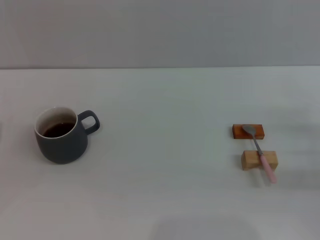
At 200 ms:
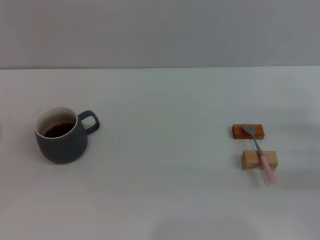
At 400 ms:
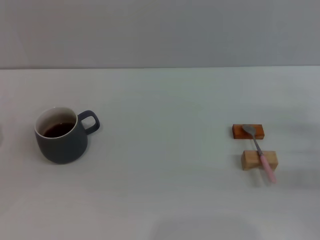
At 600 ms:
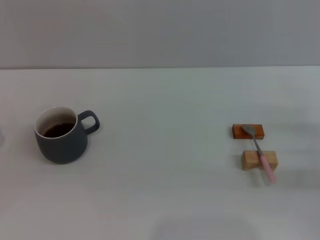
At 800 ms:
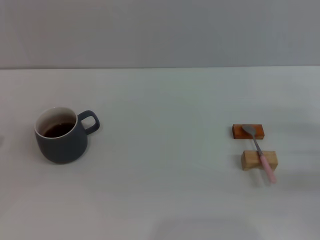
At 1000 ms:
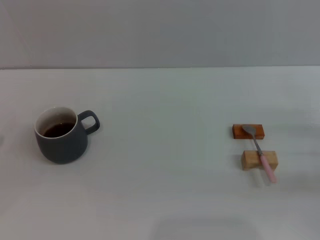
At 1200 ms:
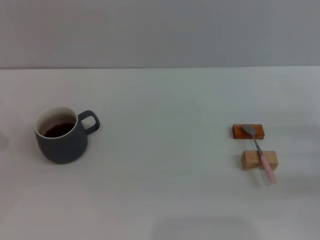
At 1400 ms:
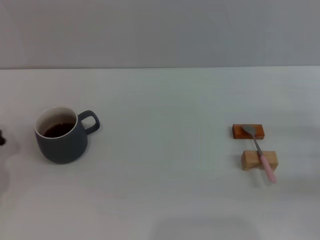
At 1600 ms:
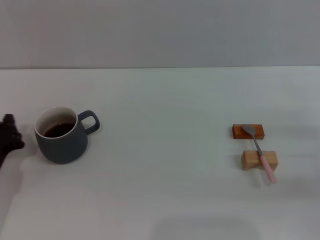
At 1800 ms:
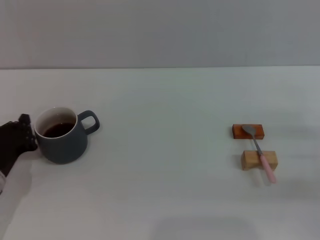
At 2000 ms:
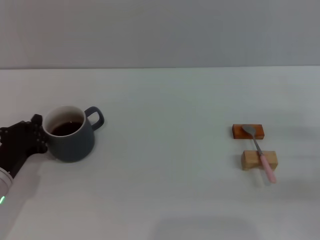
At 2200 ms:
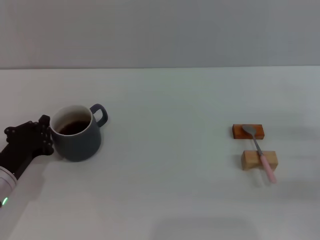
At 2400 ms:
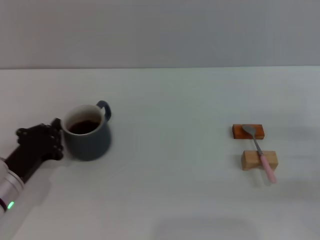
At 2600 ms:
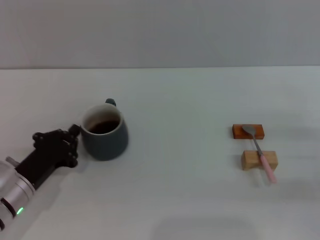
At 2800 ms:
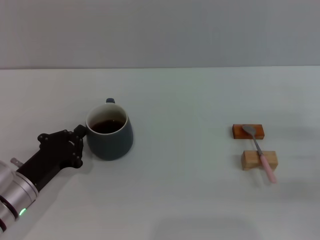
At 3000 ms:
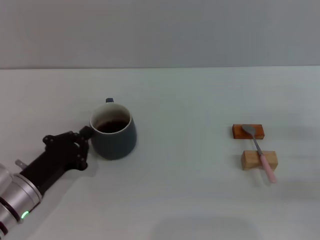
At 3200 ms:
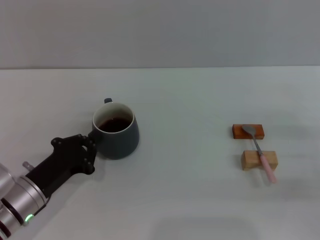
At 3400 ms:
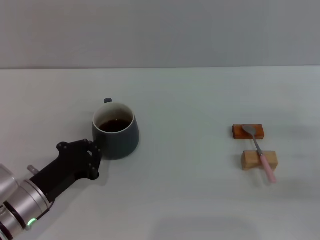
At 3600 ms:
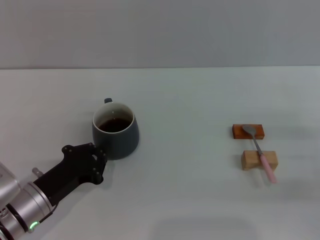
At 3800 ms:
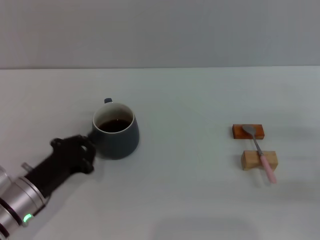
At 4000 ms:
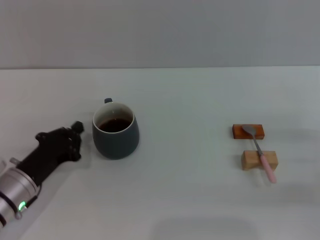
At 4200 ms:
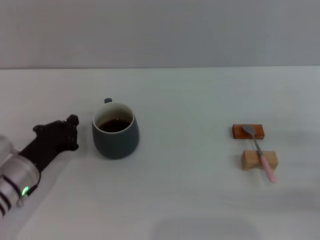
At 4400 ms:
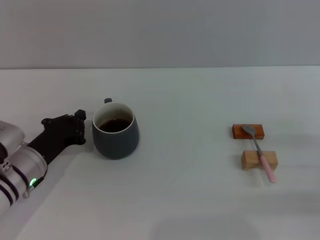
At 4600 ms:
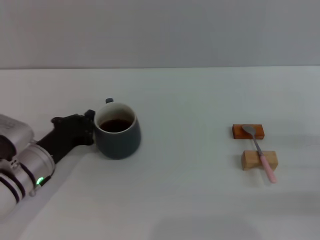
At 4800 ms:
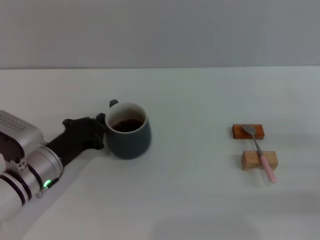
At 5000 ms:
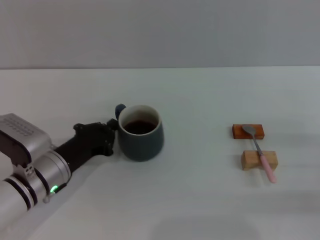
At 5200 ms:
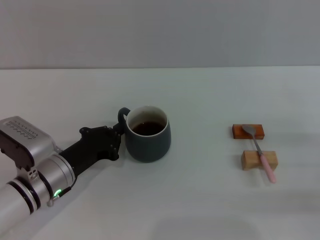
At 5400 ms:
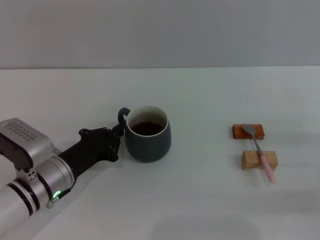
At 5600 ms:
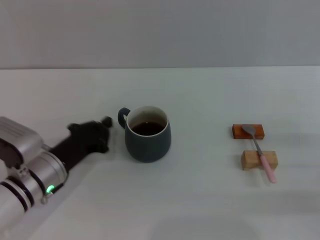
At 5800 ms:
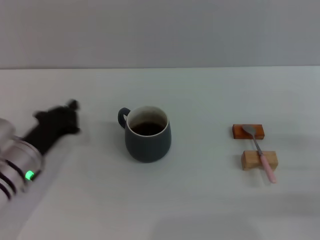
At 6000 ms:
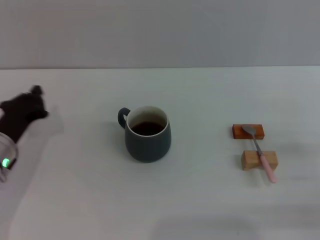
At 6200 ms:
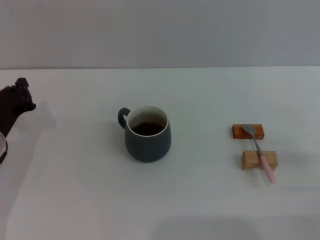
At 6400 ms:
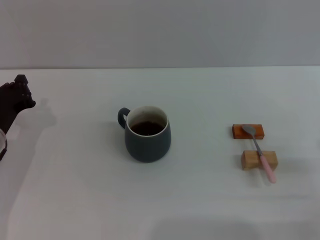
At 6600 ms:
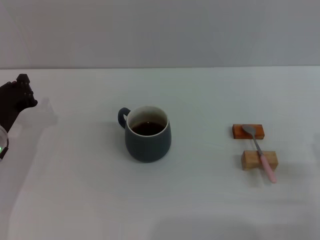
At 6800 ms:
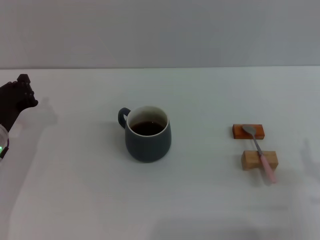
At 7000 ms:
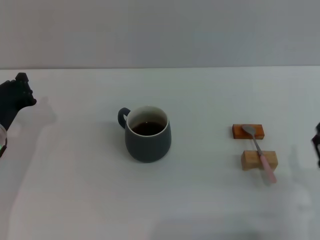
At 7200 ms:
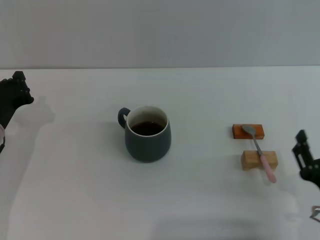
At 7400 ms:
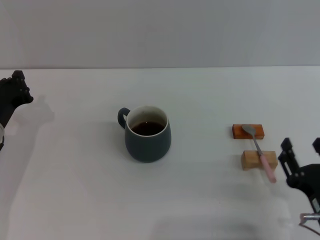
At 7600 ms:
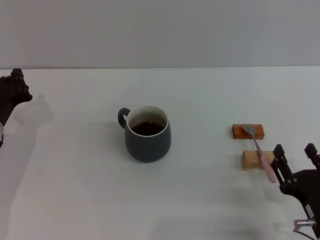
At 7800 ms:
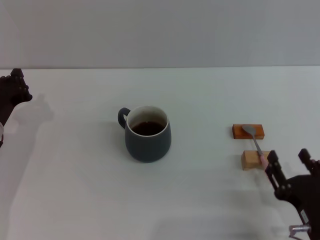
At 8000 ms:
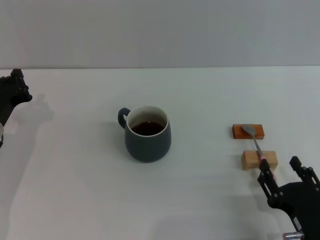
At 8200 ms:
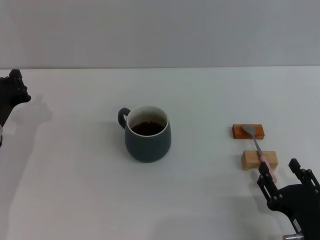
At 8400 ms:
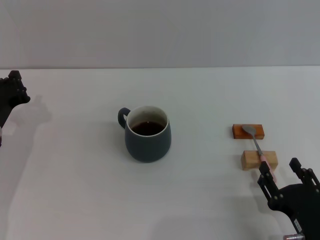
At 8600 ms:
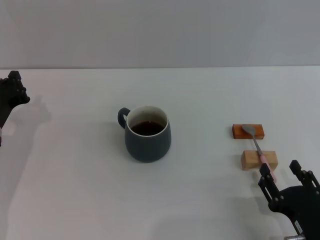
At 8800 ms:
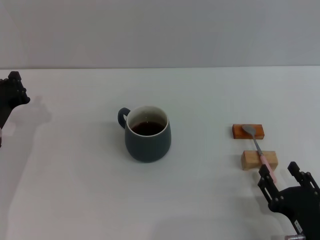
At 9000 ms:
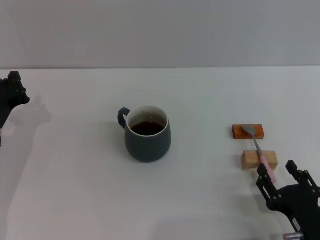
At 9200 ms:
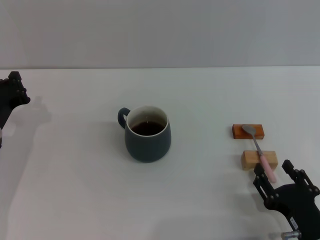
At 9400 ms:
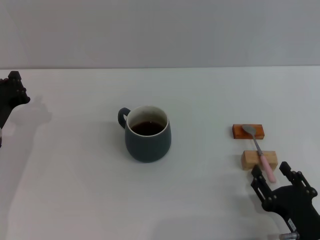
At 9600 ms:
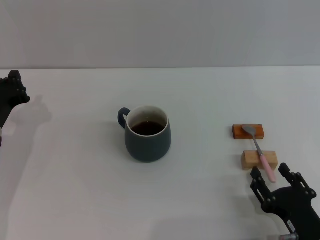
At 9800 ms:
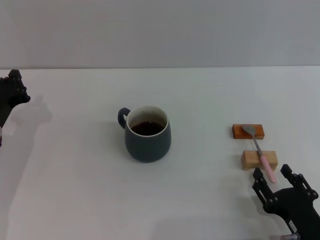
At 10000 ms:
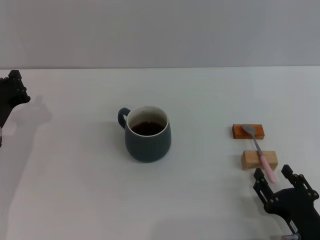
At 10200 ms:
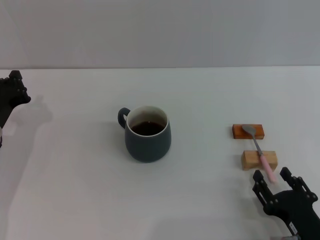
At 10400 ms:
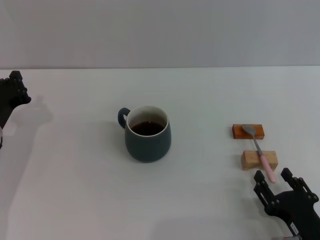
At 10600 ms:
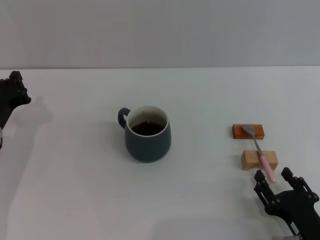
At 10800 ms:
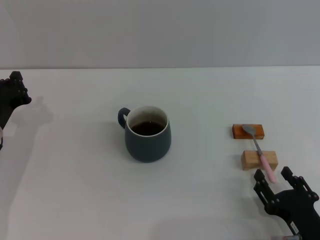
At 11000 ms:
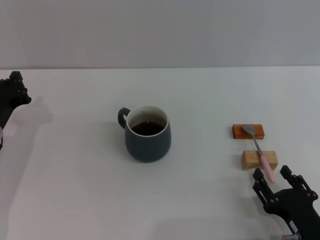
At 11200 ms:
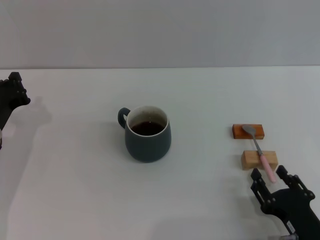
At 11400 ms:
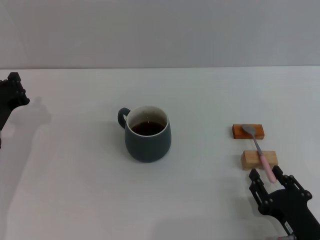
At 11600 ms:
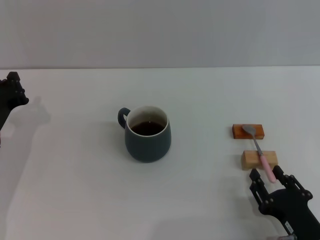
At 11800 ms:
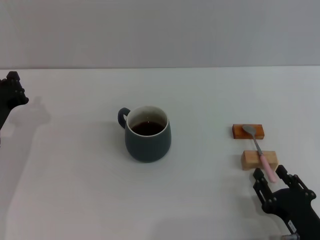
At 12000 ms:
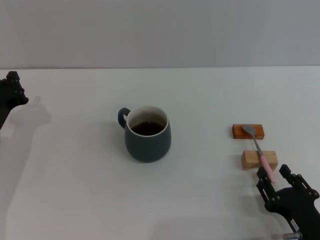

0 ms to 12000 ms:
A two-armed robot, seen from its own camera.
Task of the whole recording: Move the grey cup to the center, lift the pink spoon, stir it three times in the cup, and put the spoon into the cup.
Step, 0 ms to 5600 ms: Move the cup with coffee to the center of view with the left gripper.
0 ms to 1600 ms: The left gripper shifts by about 5 cm, and closes.
1600 ms to 3000 ms: The left gripper goes roughly 5 cm to the right.
3000 ms to 4400 ms: The grippers move only a little.
4400 ms to 6000 ms: The grippers make only small movements.
6000 ms to 7600 ms: The right gripper heads to the left and backward, covering about 15 cm.
7600 ms to 9000 ms: There are only small adjustments of the grippers.
9000 ms to 10400 ms: The two grippers keep their place.
10400 ms to 12000 ms: Both grippers stay put.

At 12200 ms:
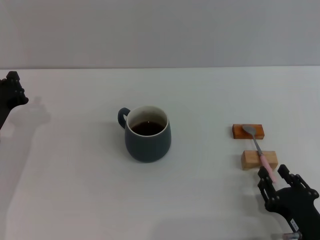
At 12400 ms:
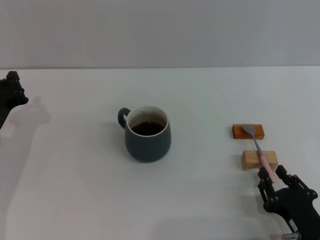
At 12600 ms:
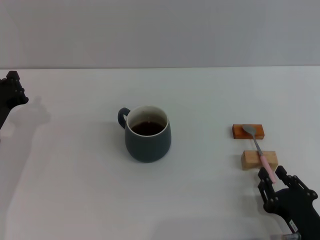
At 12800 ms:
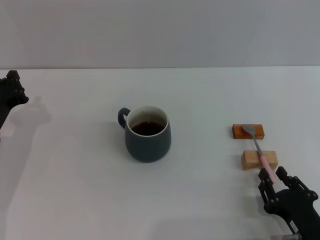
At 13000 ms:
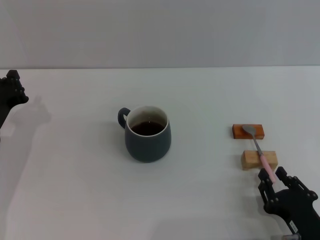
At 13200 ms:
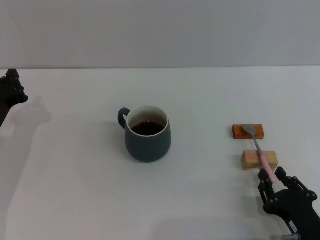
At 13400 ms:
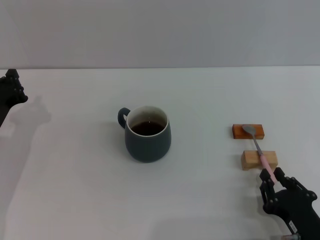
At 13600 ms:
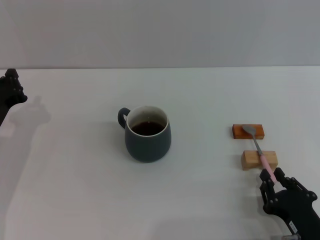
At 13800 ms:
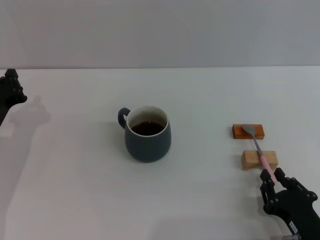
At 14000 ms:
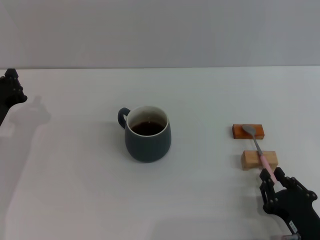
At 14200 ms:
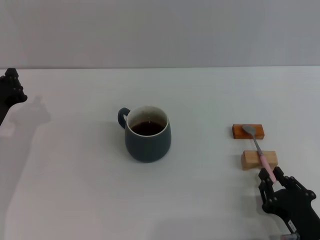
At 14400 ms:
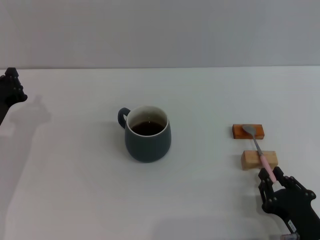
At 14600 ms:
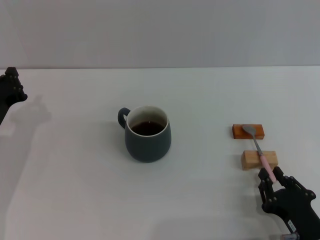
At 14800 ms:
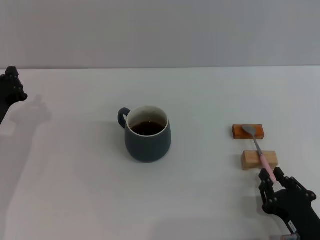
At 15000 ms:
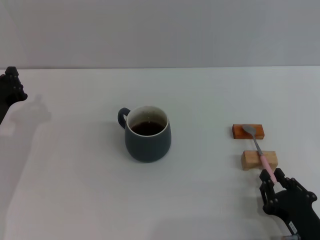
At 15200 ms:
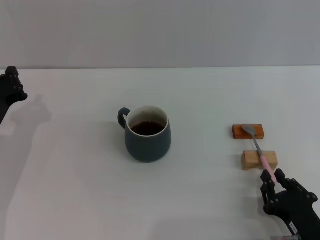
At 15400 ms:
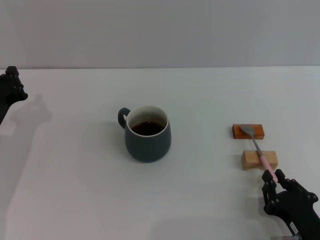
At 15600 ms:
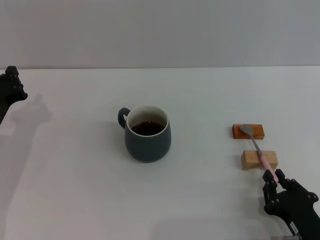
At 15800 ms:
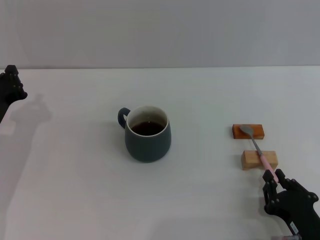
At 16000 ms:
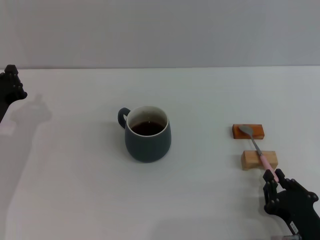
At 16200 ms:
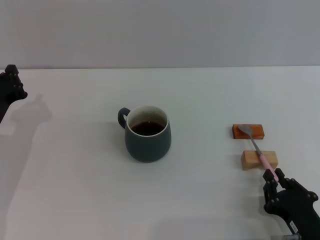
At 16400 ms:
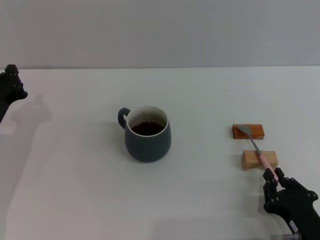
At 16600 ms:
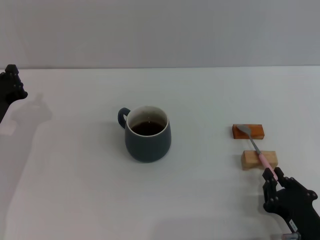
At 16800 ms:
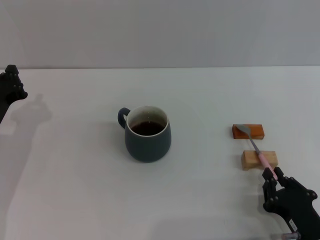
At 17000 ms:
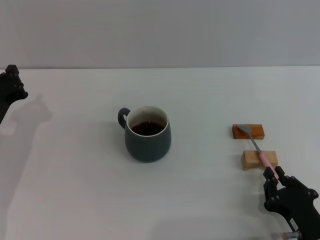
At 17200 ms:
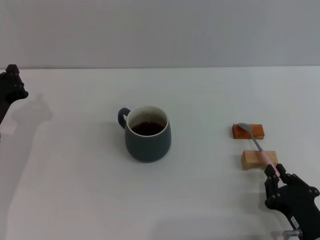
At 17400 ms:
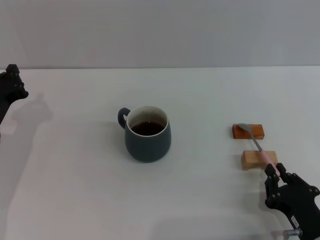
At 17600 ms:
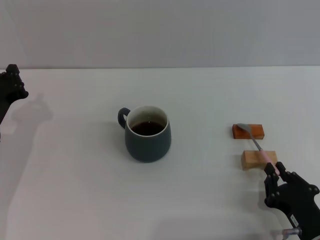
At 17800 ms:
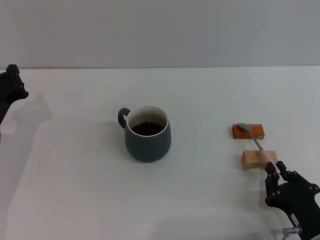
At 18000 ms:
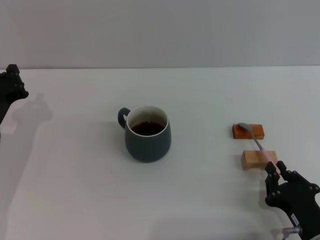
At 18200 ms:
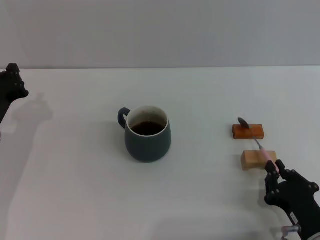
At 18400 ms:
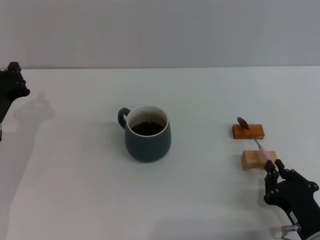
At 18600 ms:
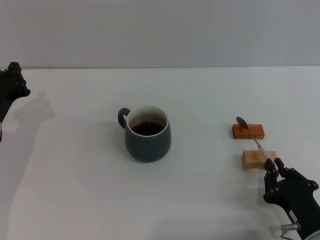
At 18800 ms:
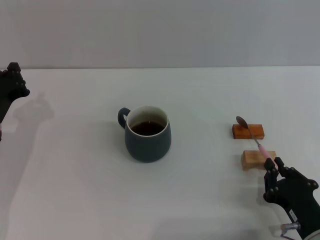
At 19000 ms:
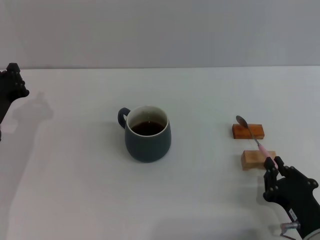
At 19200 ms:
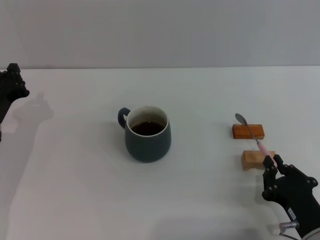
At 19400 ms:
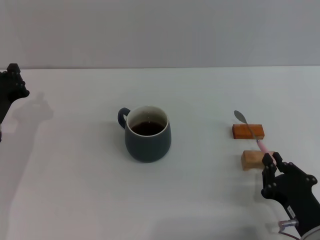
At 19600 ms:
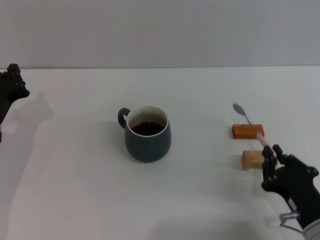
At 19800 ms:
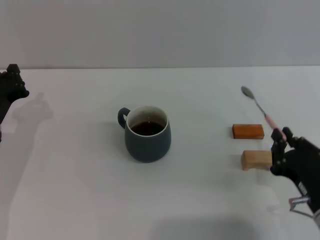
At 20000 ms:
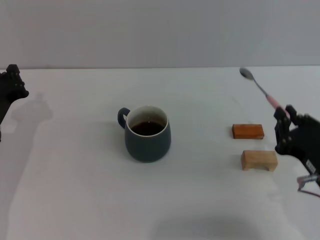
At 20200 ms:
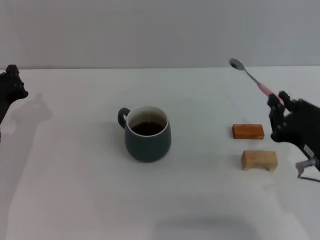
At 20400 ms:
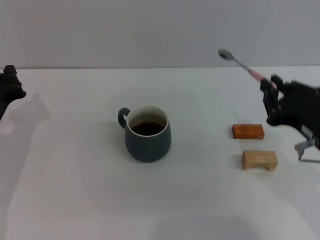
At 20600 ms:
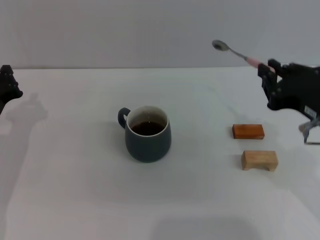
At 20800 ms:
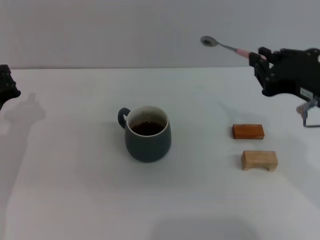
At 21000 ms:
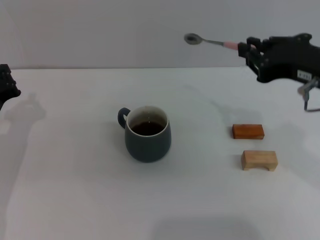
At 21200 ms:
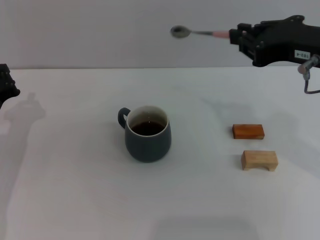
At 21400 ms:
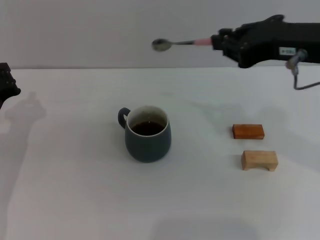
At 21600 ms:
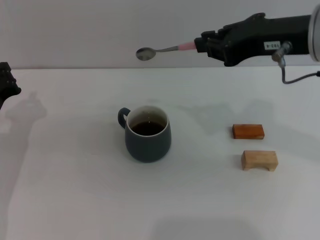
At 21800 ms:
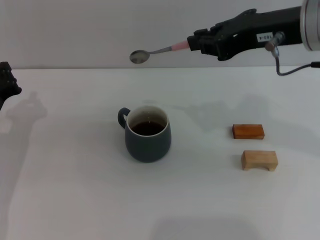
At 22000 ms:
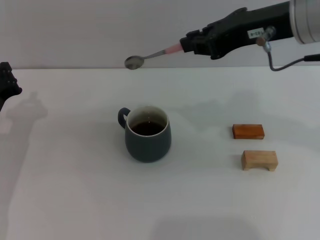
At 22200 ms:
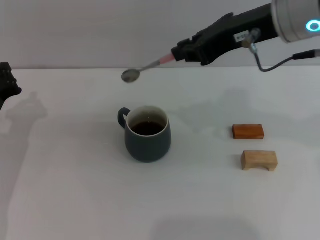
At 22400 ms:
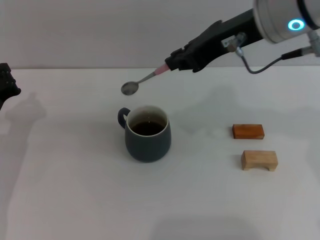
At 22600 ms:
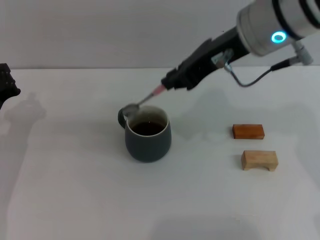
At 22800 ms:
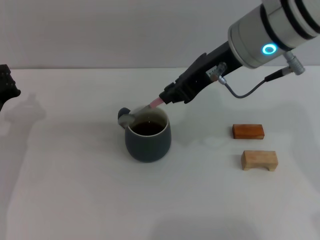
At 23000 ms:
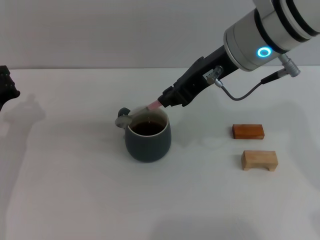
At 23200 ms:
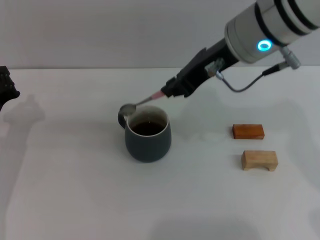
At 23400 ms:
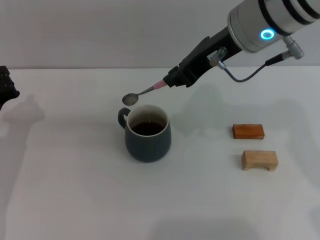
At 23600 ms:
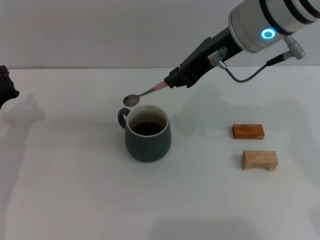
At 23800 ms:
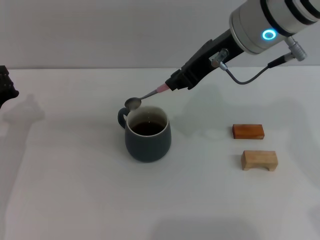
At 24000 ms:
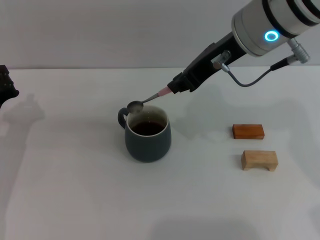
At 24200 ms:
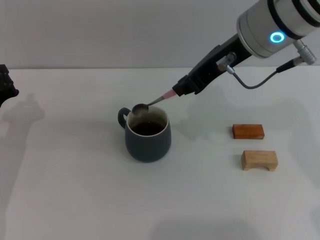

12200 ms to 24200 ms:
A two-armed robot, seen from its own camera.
Task of the whole recording: Move the grey cup to the center, lift the pink spoon, stir it three times in the cup, and put the spoon into the cup.
Step, 12200 ms to 19800 ms: Pick up the spoon with the right gripper.
12200 ms to 13800 ms: The right gripper closes up.
13800 ms to 18200 ms: Both grippers stay put.
18200 ms to 19800 ms: The right gripper is displaced upward by roughly 5 cm.
19800 ms to 21200 ms: The right gripper moves upward and forward, about 25 cm.
21200 ms to 22600 ms: The right gripper heads to the left and forward, covering approximately 10 cm.
22600 ms to 24200 ms: The grippers stay close to where they were, moving slightly.
